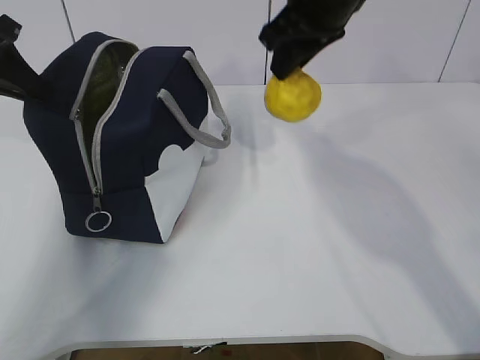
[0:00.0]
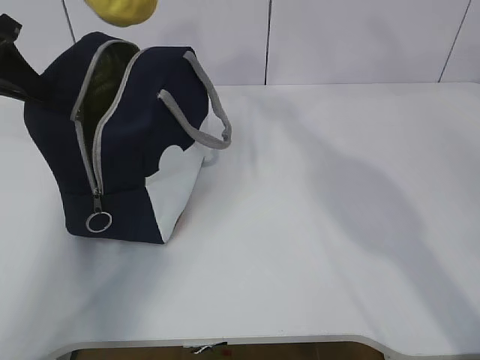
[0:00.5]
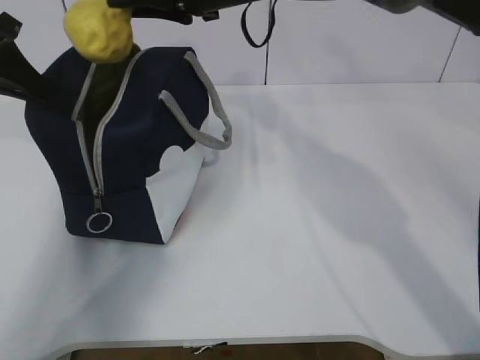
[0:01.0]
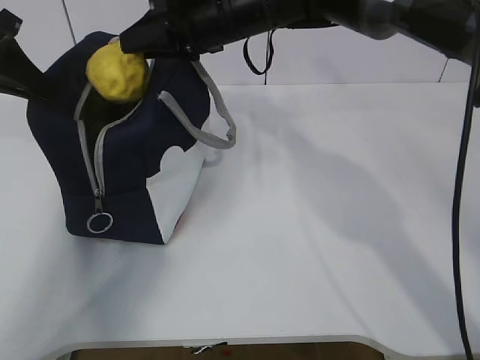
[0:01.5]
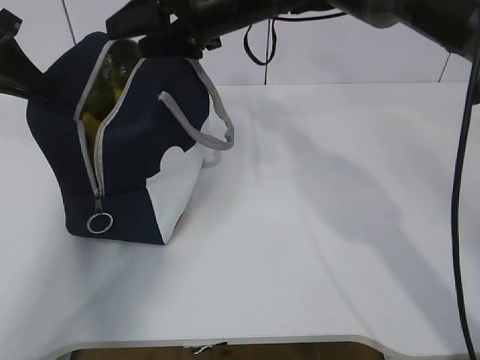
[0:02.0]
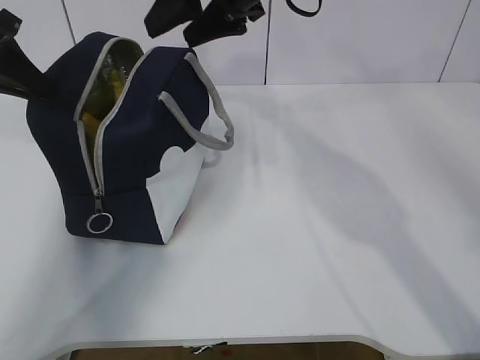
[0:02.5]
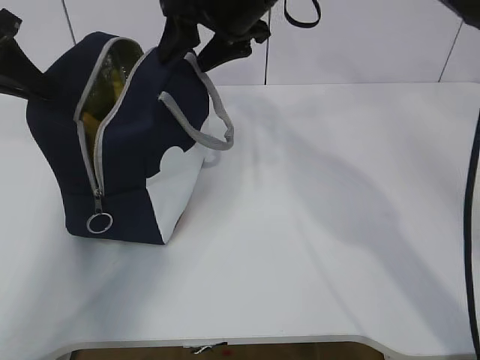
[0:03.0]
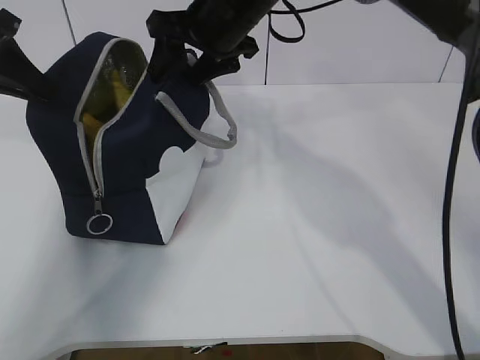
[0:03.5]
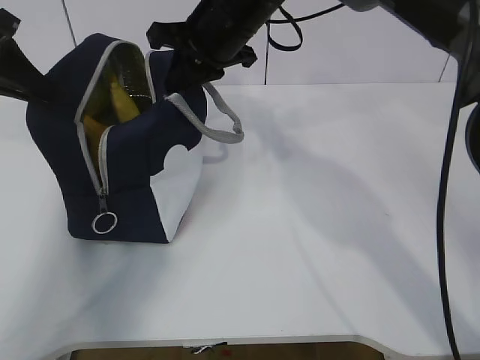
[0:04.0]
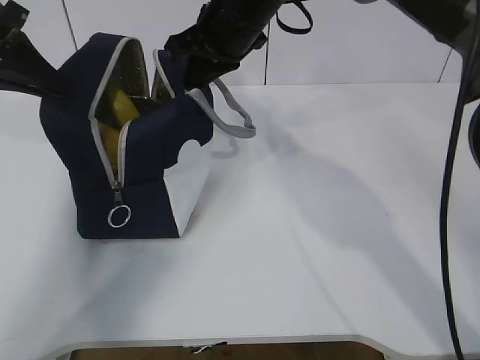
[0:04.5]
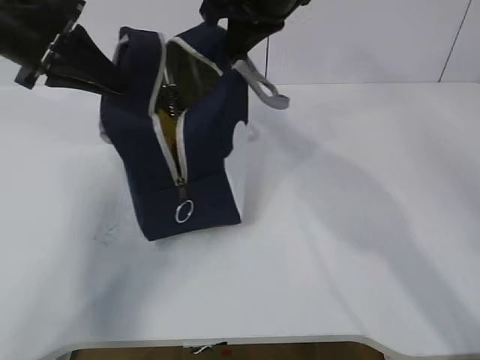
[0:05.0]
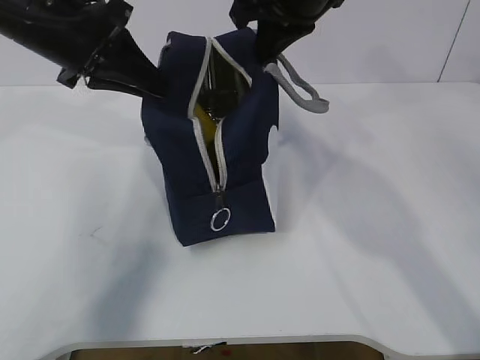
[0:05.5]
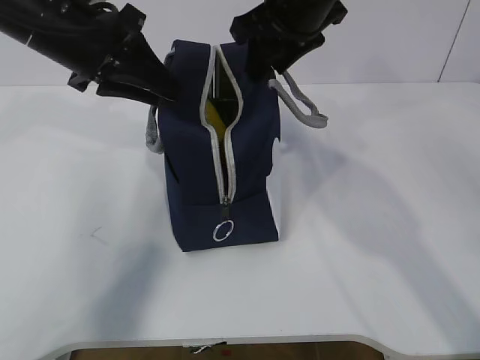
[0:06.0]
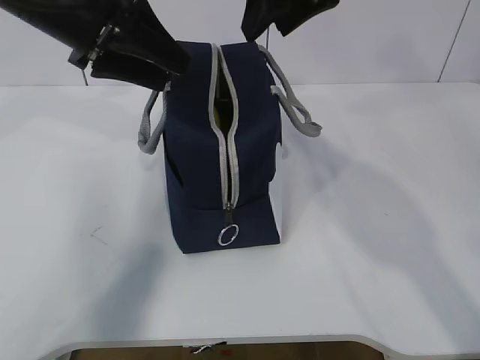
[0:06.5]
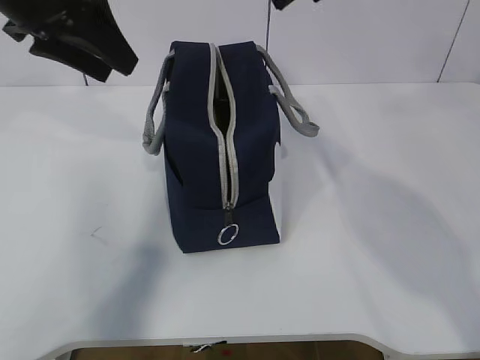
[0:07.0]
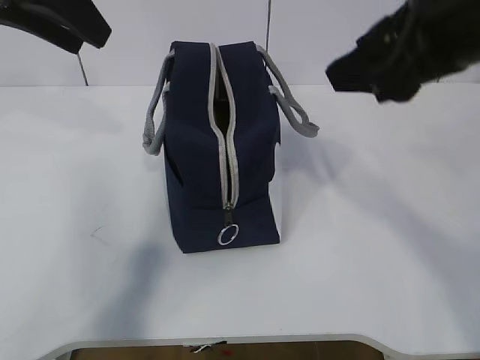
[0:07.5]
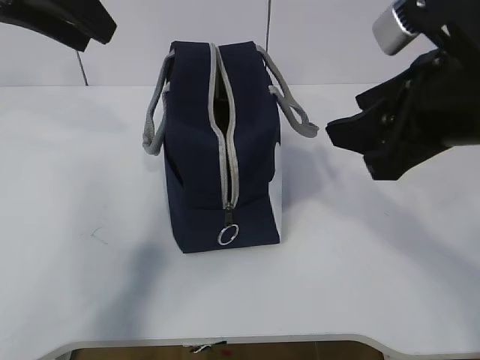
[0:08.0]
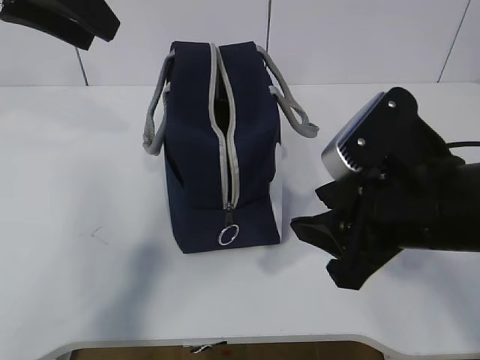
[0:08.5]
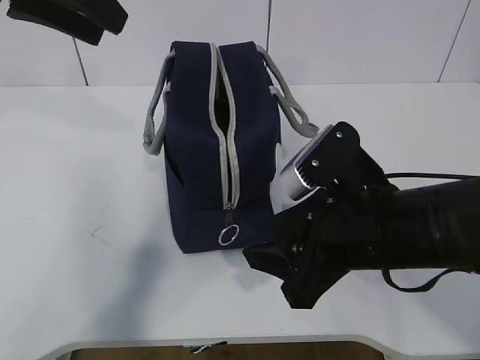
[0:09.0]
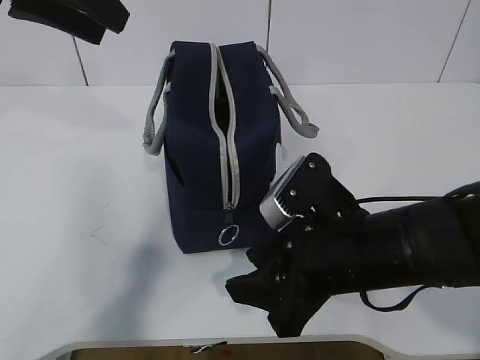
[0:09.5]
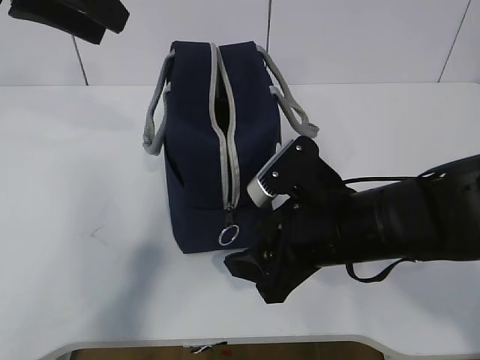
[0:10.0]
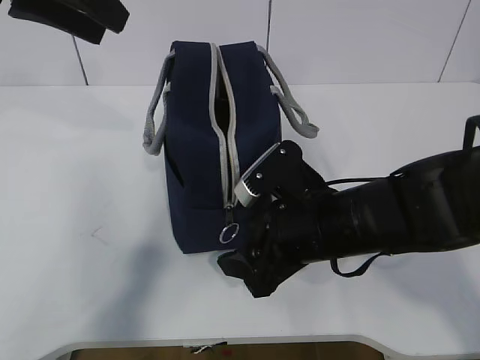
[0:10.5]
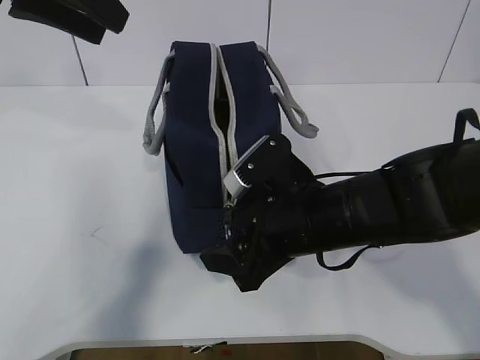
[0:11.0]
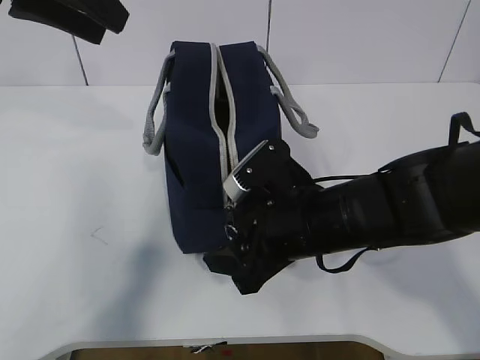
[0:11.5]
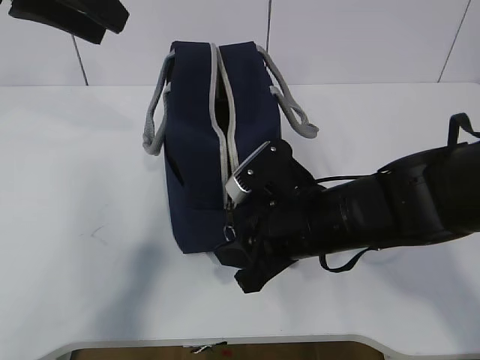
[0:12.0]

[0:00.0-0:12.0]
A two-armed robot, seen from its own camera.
Step, 0:00.0 to 0:01.0: Move the lunch bag to the right.
0:00.0 to 0:02.0: The right gripper goes roughly 10 cm to the left, goes upward and returns, some 5 cm each way, and opens.
0:02.0 to 0:04.0: The right gripper closes up.
0:04.0 to 0:06.0: The left gripper shifts some 15 cm to the right, and opens up. The right gripper shifts some 5 cm to the right, and opens its fingers.
0:06.0 to 0:08.0: The left gripper heads upward, covering roughly 10 cm, and opens, while the right gripper goes some 20 cm backward and to the right.
0:08.0 to 0:10.0: The right gripper goes roughly 15 cm downward and to the left.
0:10.0 to 0:12.0: The right gripper closes its fingers.

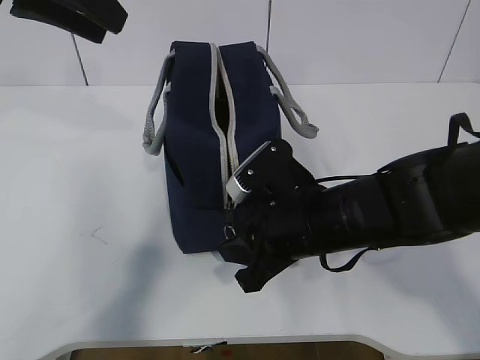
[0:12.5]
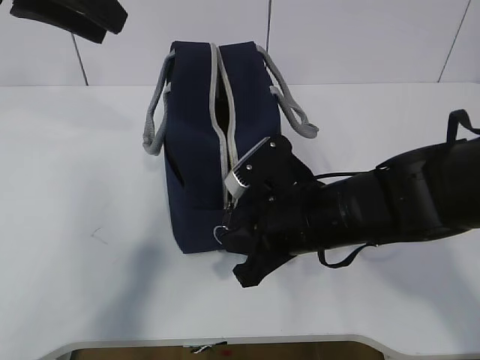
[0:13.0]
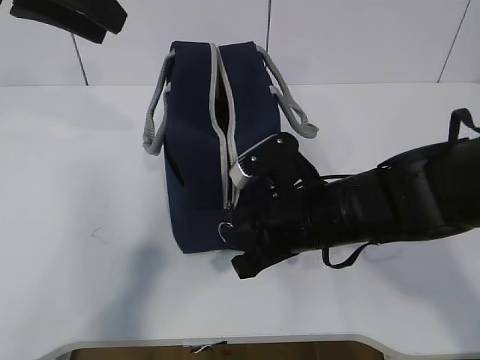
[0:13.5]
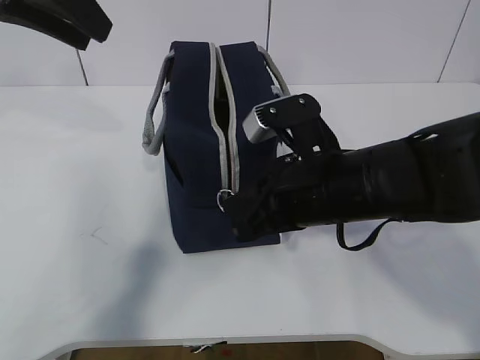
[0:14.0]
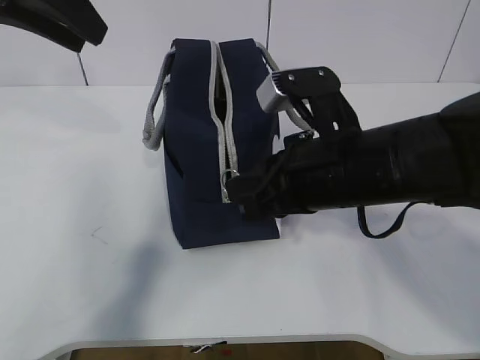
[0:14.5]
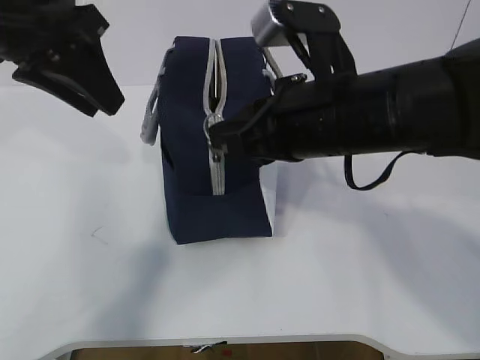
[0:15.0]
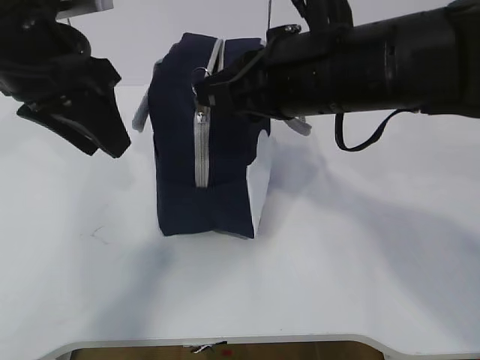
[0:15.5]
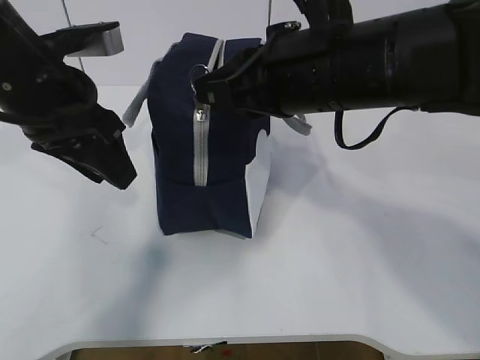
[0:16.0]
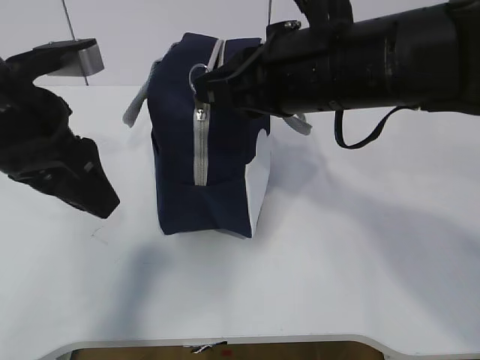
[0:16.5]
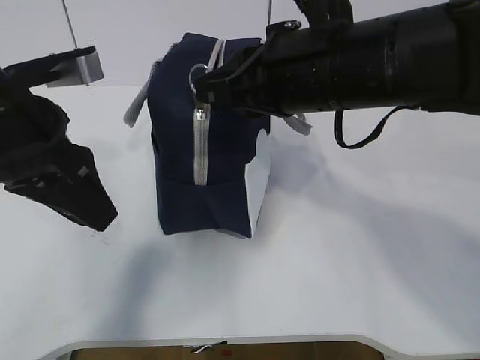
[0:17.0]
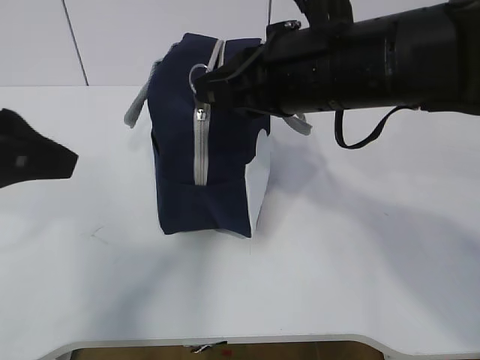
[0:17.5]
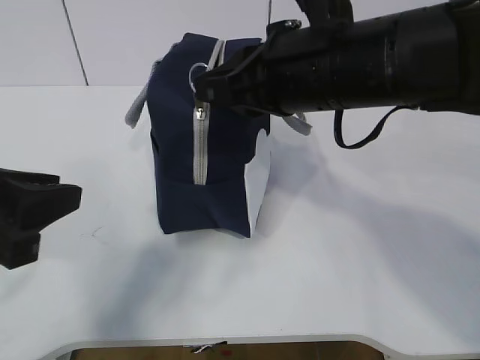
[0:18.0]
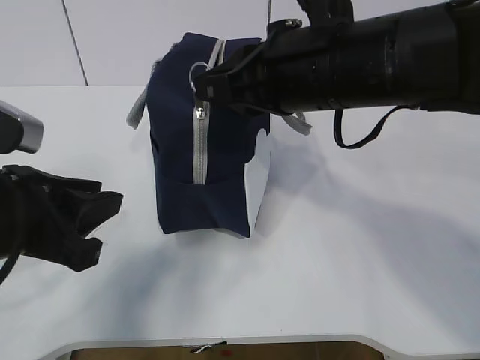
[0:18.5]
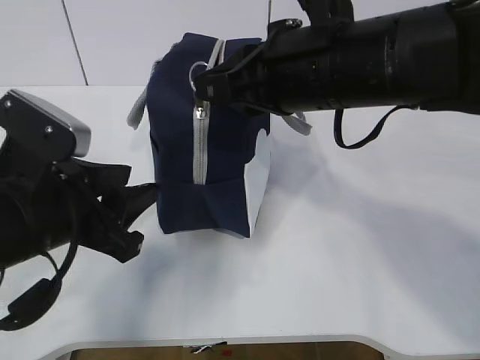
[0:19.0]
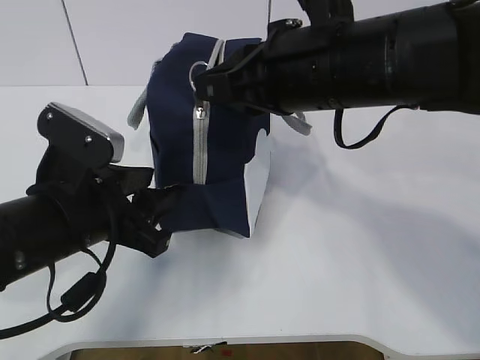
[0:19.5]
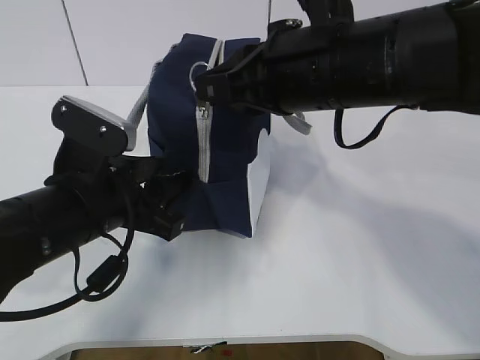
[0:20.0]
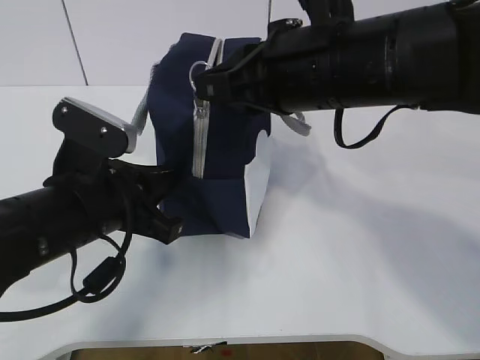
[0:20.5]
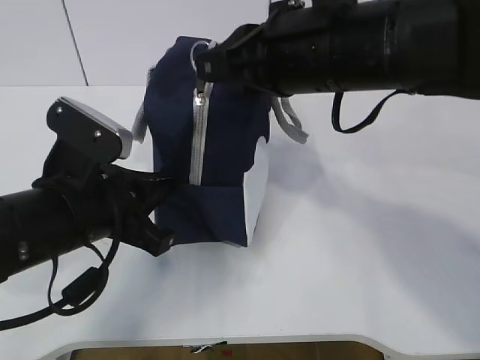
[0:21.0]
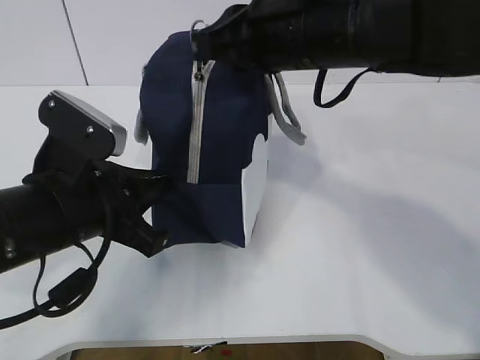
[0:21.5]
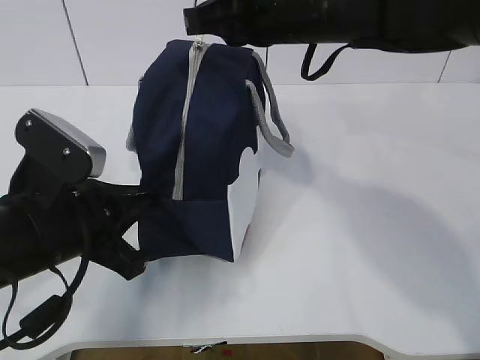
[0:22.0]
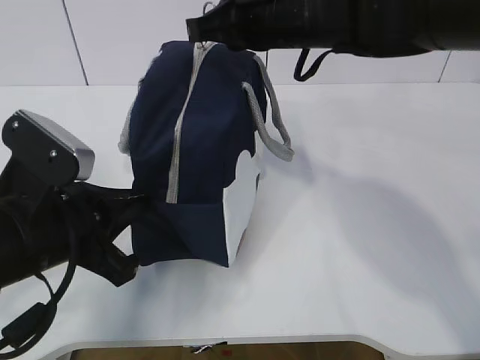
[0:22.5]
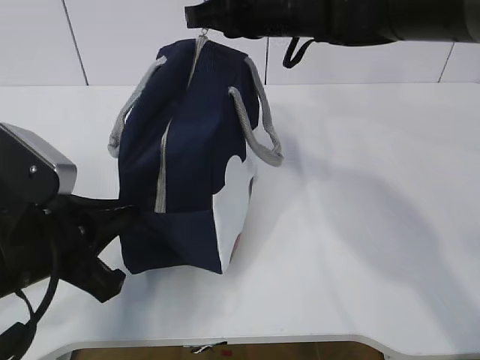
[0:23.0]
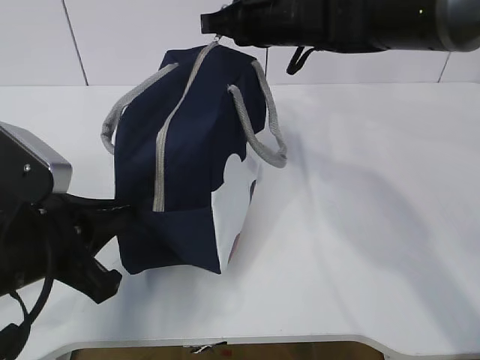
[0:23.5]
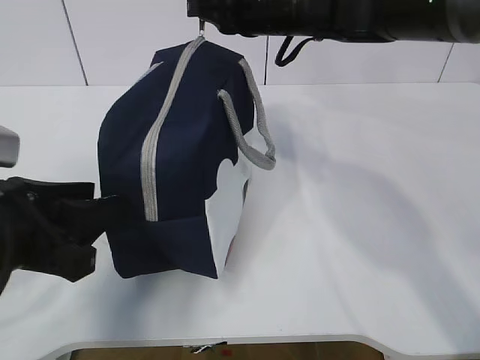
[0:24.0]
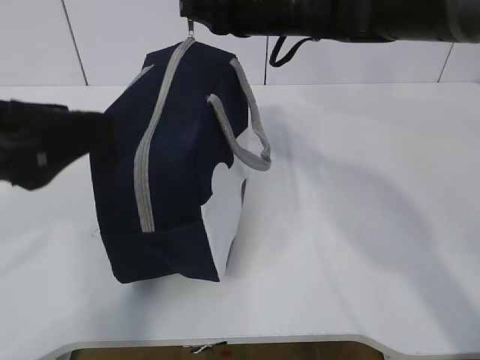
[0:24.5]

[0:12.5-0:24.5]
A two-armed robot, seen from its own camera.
Step, 0:12.5 to 0:15.5: Grab the lunch bag with your left hand.
0:12.5 to 0:14.5: The right gripper is displaced upward by roughly 10 cm, and closes its fingers.
0:14.5 to 0:16.5: The right gripper goes roughly 5 cm upward; the left gripper is displaced downward and backward by roughly 15 cm.
0:16.5 to 0:18.5: The left gripper travels backward and downward by about 10 cm.
0:18.5 to 0:20.5: The left gripper heads to the right and forward, covering about 5 cm, and closes its fingers.
0:20.5 to 0:22.5: The right gripper is displaced forward by some 10 cm.
0:22.5 to 0:24.5: The left gripper goes roughly 10 cm upward, and opens up, while the right gripper moves forward, roughly 5 cm.

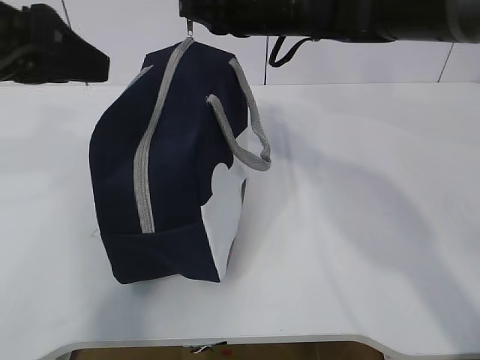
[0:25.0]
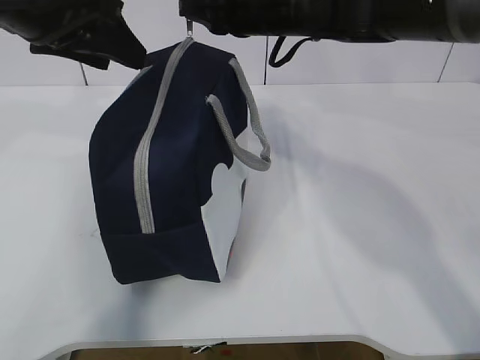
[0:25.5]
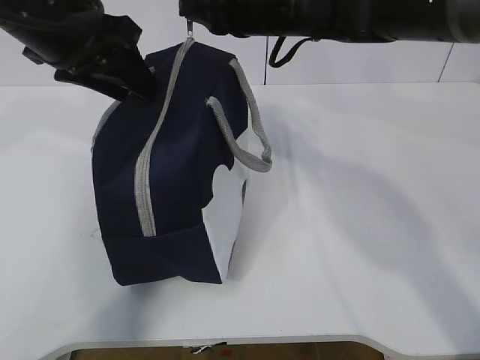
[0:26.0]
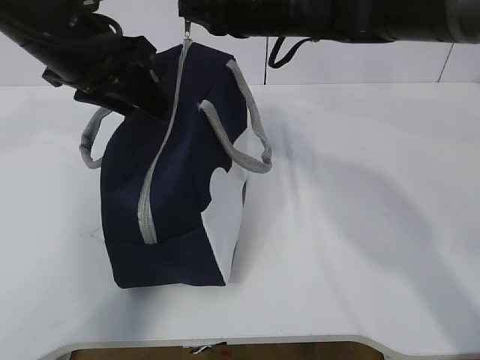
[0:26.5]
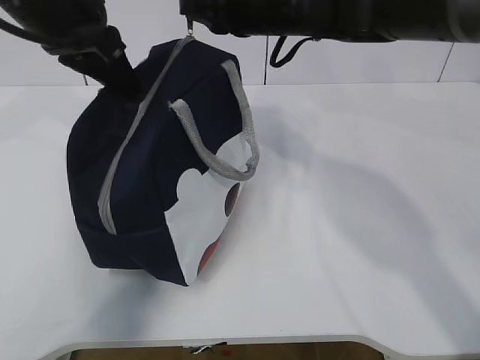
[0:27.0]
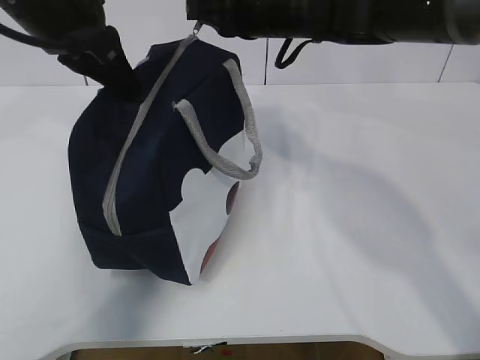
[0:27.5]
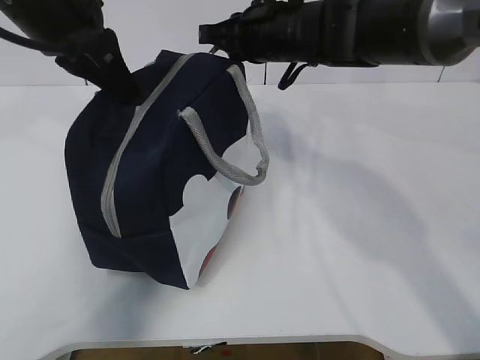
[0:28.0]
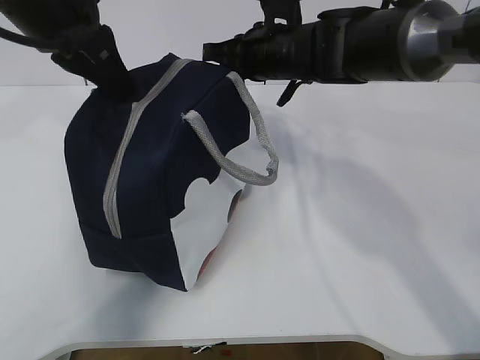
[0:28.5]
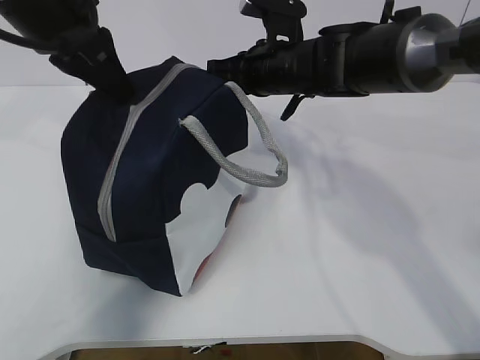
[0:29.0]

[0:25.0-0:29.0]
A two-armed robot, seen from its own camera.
0:25.0 to 0:27.0: The left gripper is displaced forward by roughly 10 cm, and closes.
0:27.0 to 0:29.0: The right gripper travels downward by some 10 cm.
